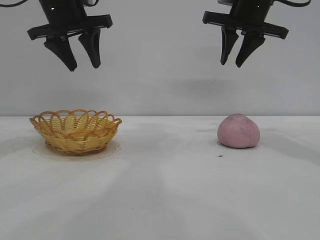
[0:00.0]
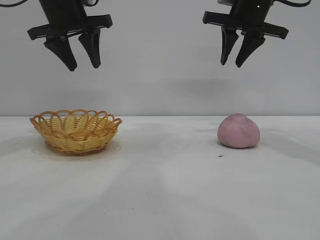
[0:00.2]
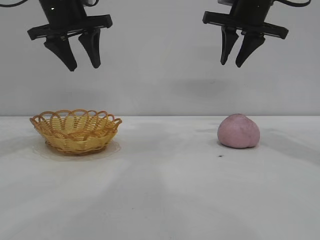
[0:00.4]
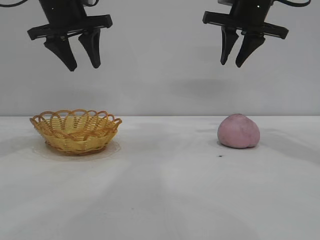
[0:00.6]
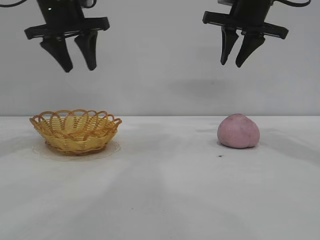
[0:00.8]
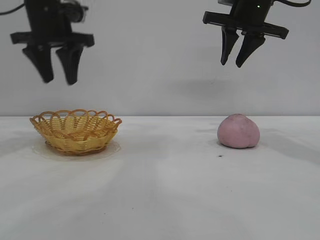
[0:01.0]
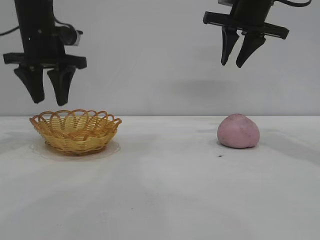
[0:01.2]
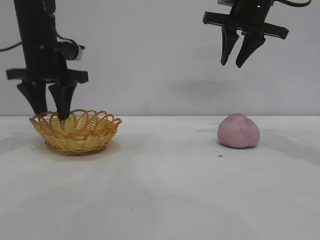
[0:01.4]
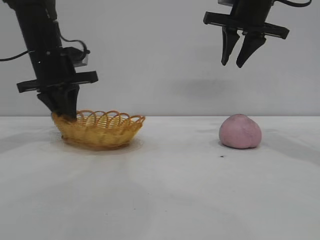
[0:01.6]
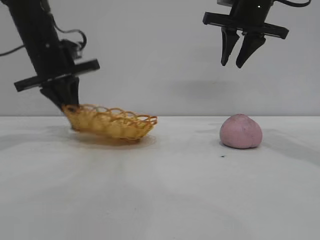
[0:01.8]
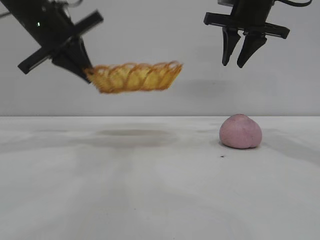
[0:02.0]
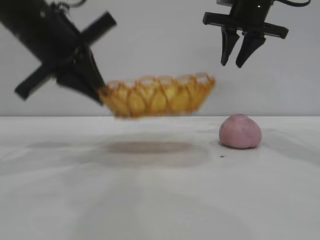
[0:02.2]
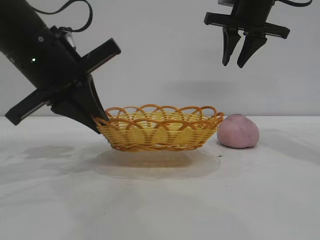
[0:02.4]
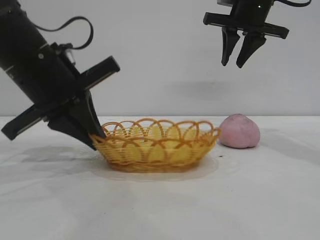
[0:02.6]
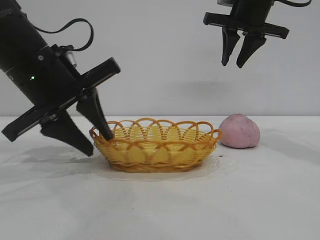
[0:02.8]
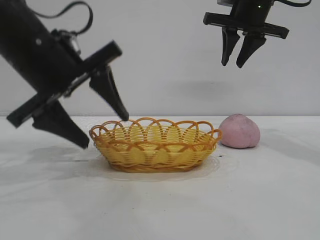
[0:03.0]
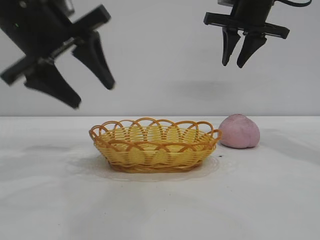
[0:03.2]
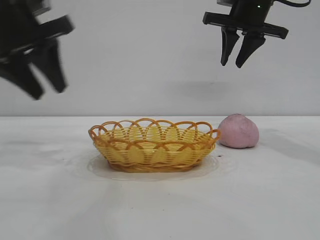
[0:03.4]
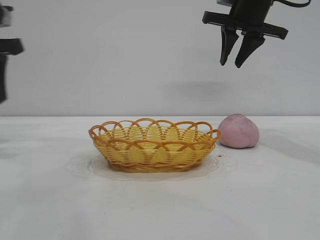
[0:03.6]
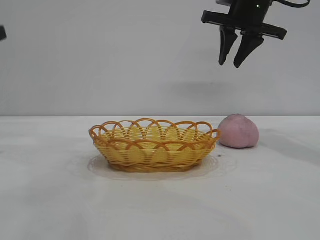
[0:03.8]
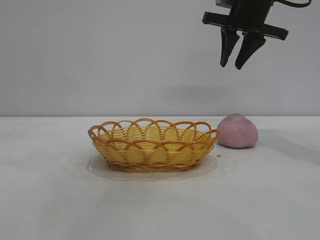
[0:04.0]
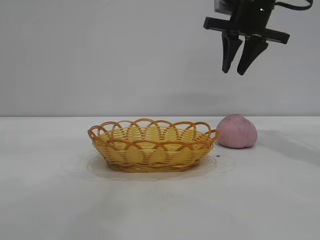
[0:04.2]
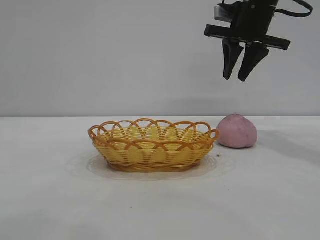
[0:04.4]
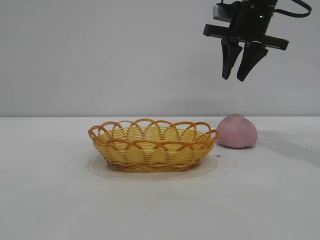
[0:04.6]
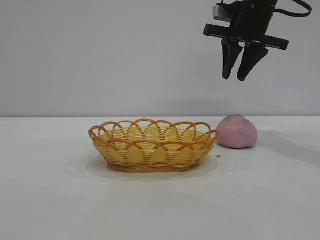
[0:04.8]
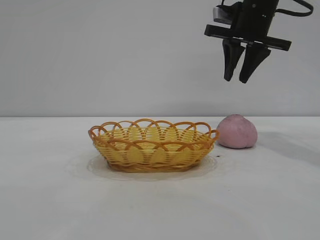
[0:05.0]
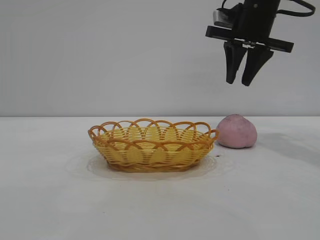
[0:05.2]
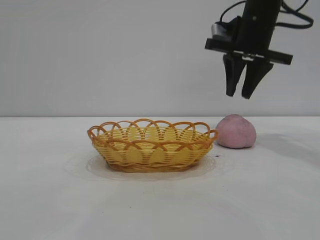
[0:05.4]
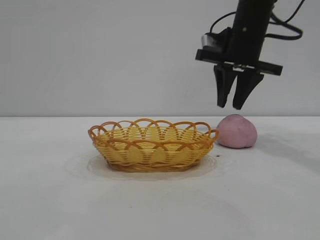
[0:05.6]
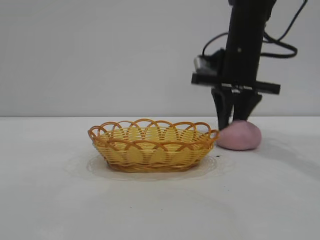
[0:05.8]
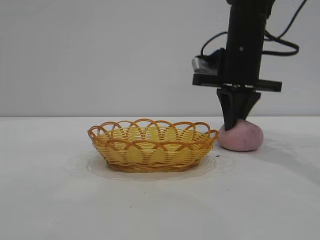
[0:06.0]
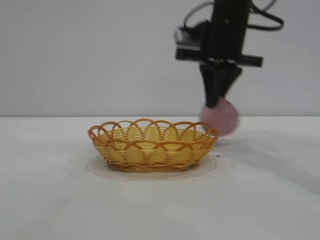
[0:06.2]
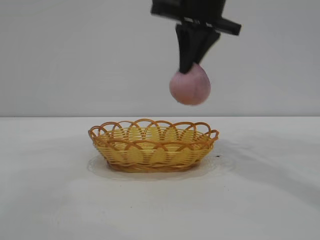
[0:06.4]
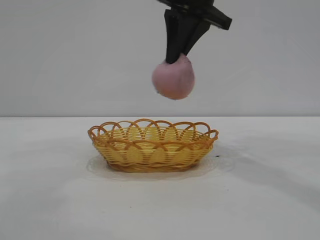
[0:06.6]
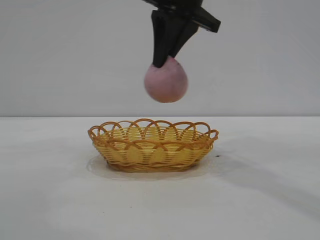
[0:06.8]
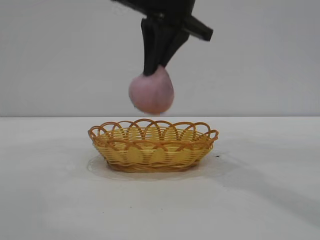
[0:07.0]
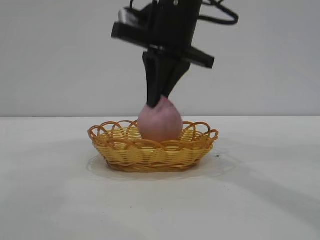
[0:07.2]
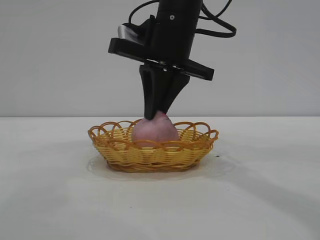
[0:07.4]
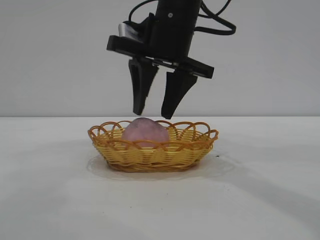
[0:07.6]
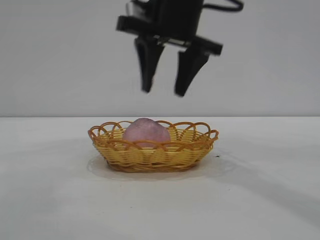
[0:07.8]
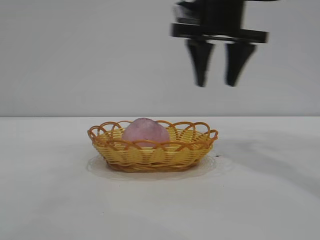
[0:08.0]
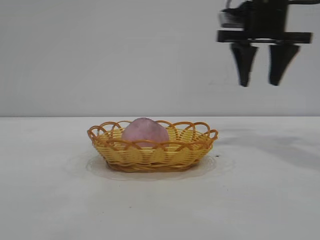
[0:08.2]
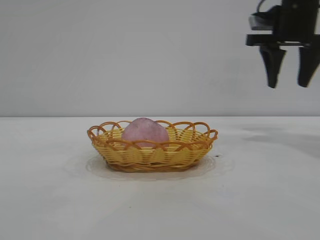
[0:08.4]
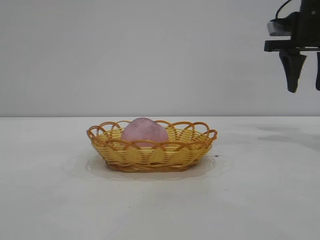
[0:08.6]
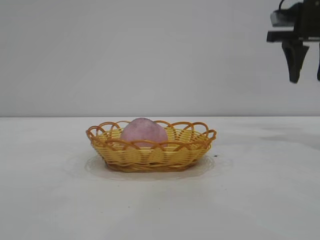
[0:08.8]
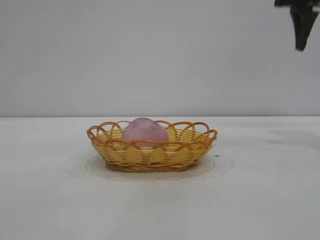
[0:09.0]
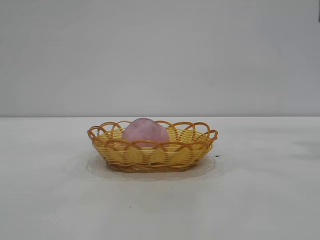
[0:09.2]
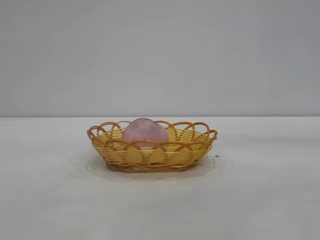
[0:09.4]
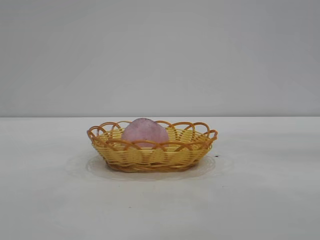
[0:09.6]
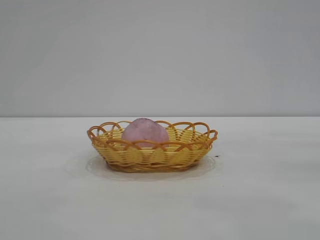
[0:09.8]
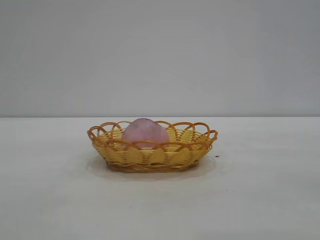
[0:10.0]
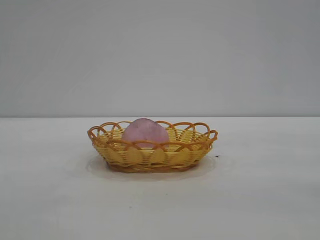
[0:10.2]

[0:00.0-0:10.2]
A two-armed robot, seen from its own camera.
Task of the whole recording: pick up the peach and put it into the basket.
Step, 0:00.0 to 0:03.2: Move the basket to the center of view.
Step, 0:03.4 to 0:06.2: Pick up the peach.
Step, 0:06.4 to 0:07.8: place the peach into the basket.

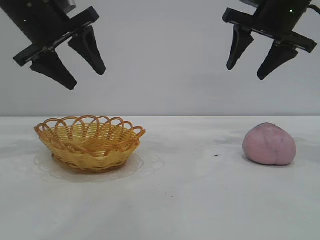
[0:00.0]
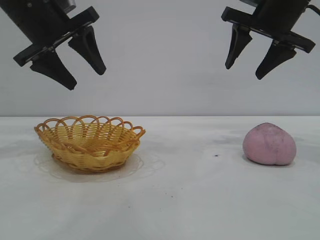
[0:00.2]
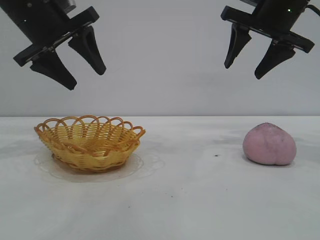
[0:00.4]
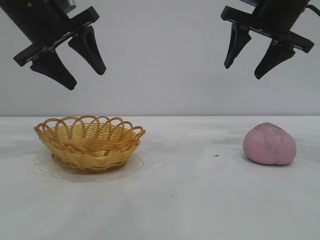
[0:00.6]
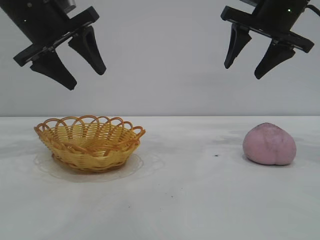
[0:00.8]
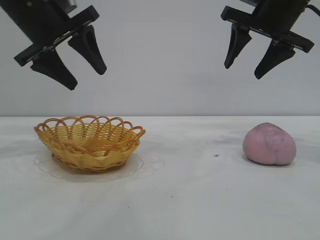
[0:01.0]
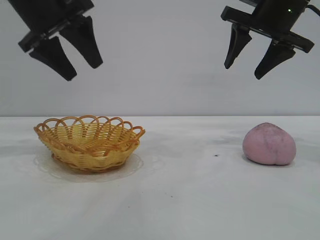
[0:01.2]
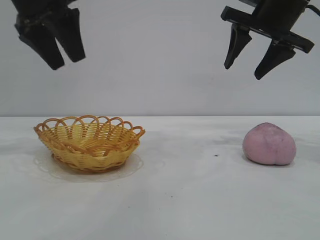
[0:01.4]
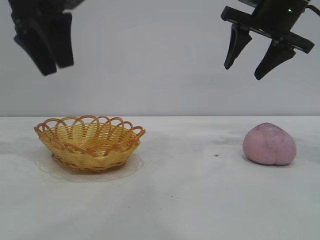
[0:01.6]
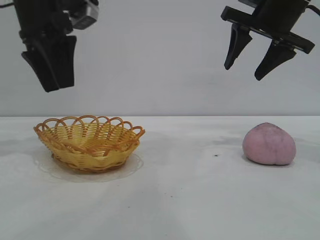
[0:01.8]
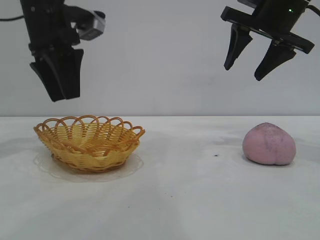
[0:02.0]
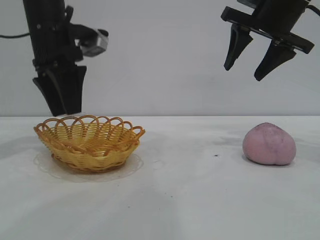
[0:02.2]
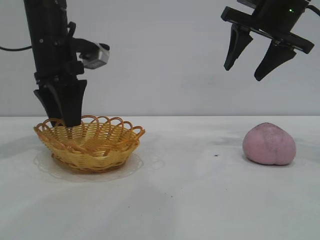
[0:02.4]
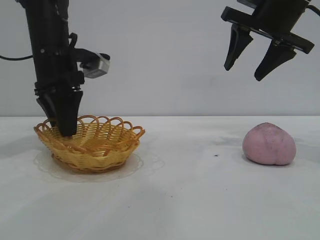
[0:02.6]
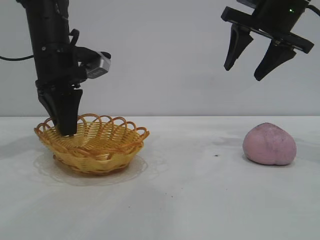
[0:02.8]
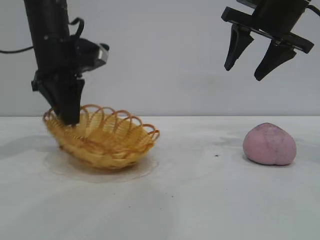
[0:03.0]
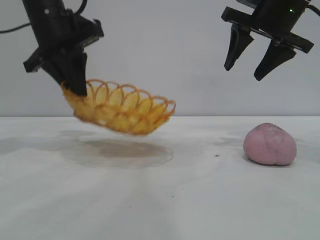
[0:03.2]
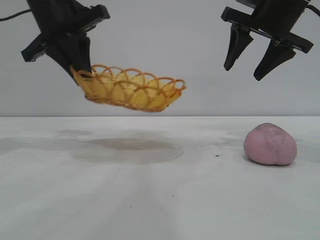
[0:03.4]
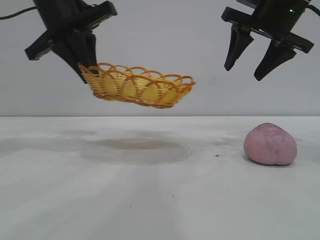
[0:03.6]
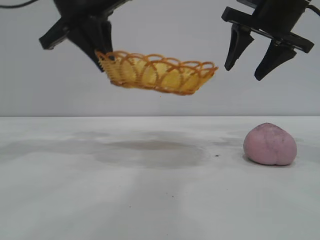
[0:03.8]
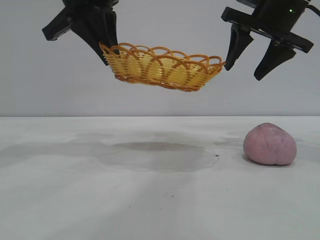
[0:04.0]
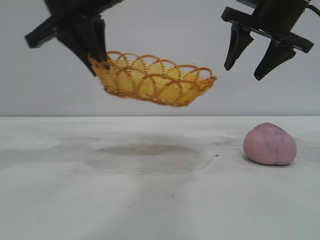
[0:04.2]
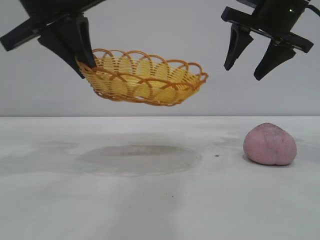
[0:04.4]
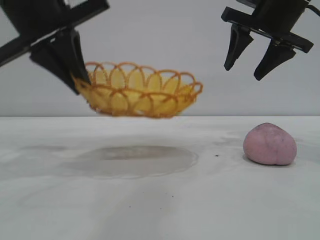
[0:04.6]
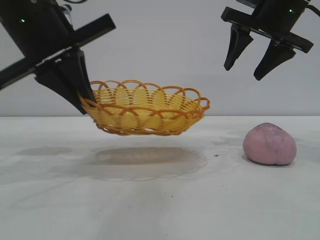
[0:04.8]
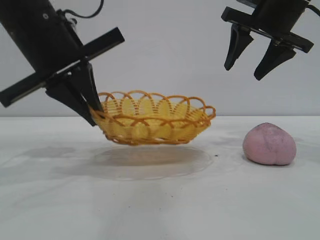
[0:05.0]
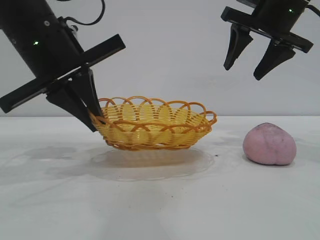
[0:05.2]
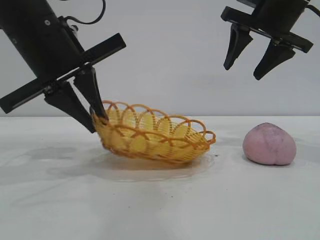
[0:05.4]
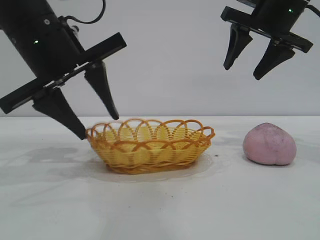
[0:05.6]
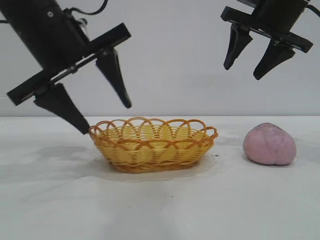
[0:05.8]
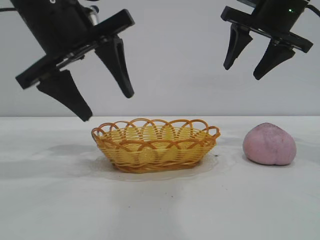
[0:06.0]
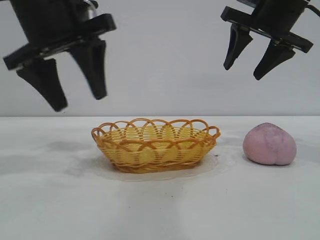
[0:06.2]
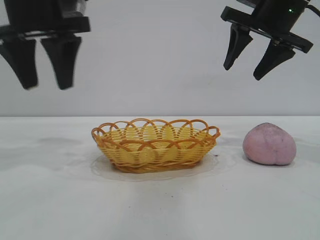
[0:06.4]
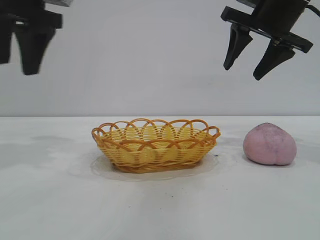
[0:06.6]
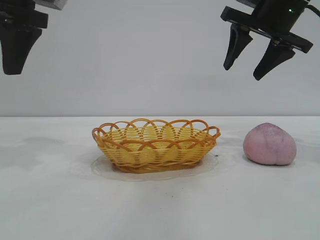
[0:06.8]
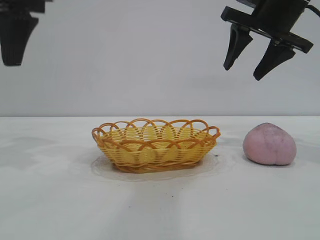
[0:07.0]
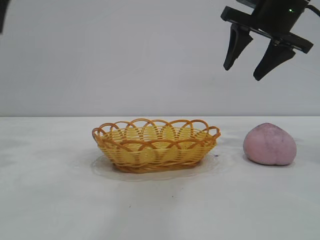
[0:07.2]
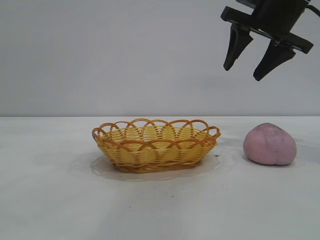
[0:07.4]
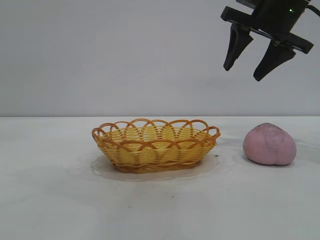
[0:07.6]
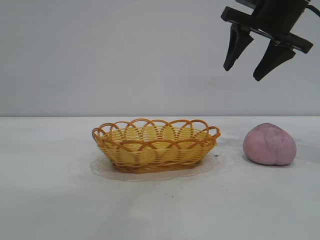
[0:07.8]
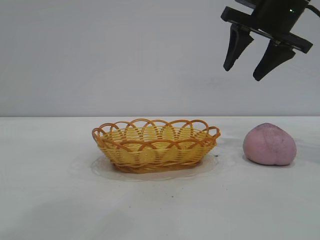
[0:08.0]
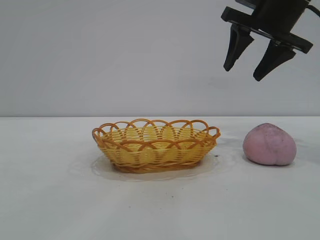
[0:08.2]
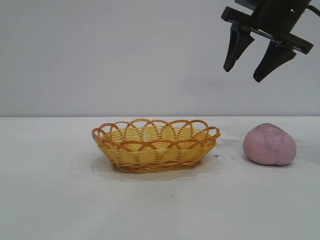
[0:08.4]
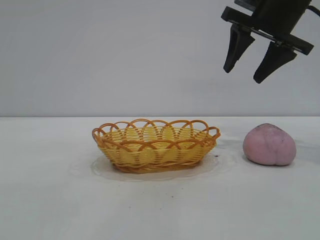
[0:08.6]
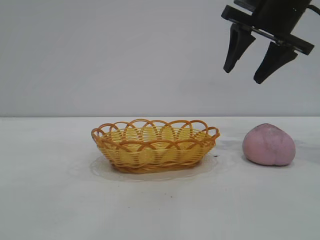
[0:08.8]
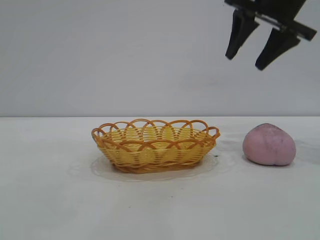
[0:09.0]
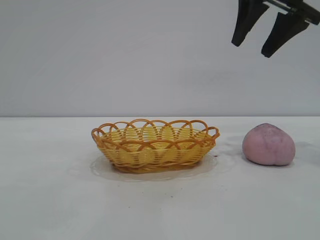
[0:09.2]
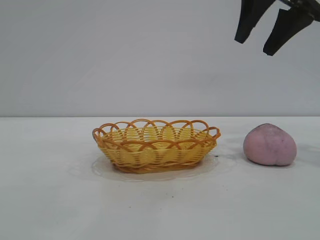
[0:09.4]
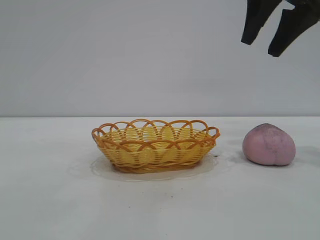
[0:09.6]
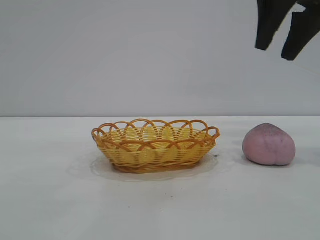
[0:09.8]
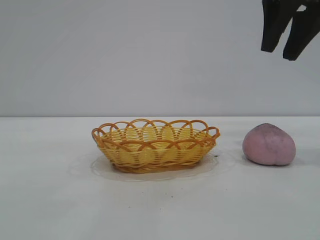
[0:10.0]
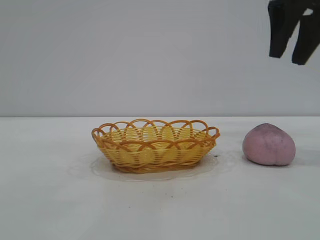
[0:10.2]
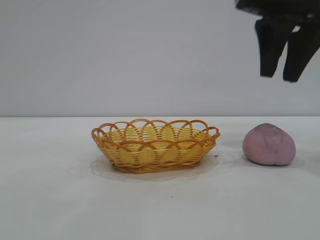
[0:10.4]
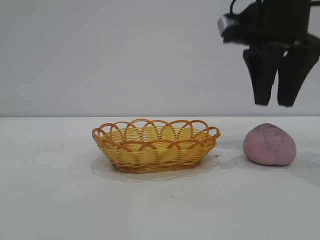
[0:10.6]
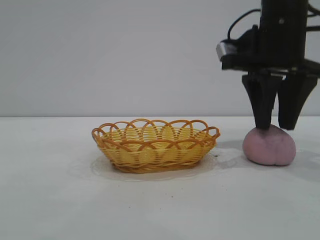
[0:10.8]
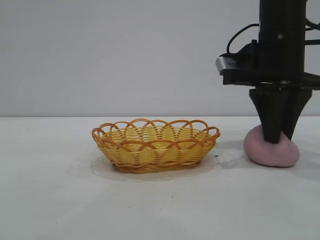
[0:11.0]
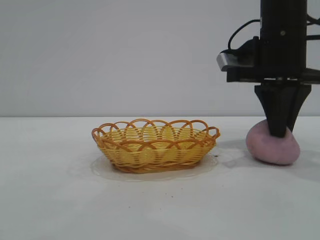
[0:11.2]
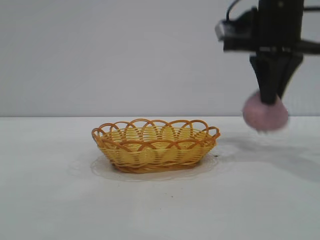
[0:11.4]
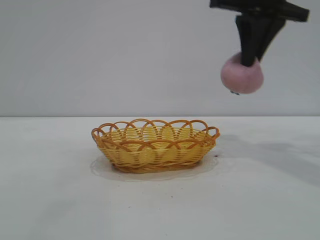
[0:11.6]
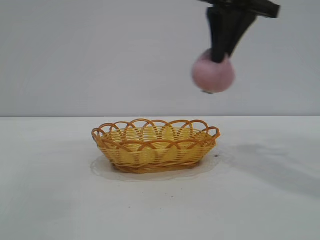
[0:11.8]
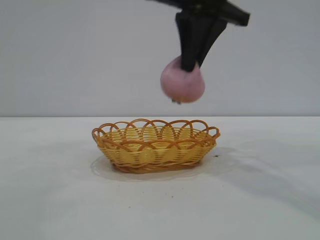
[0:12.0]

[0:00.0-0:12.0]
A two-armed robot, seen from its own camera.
Task of the whole recording: pick up the peach and put it into the basket.
Step, 0:00.0 to 0:06.4: Move the basket to the center of view.
Step, 0:06.6 to 0:11.4: Pick up the peach.

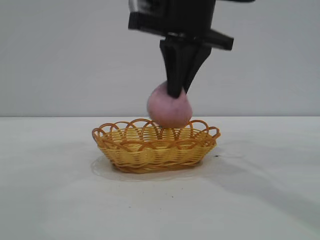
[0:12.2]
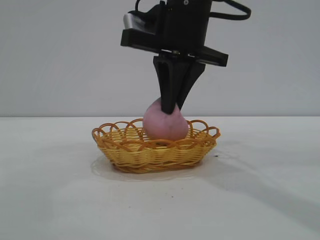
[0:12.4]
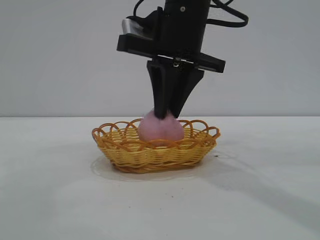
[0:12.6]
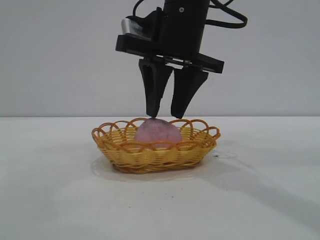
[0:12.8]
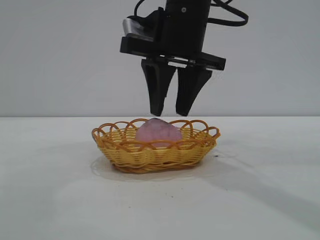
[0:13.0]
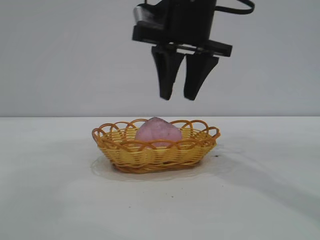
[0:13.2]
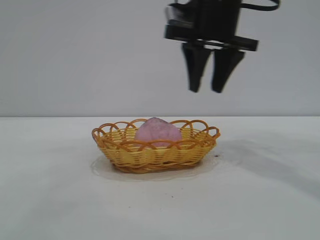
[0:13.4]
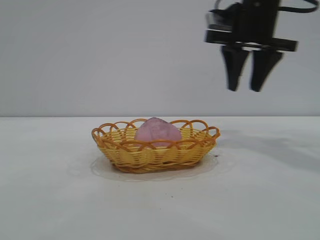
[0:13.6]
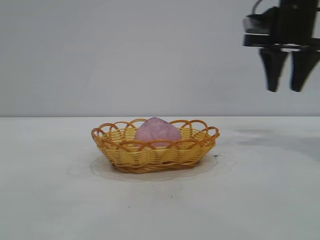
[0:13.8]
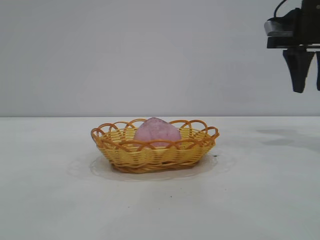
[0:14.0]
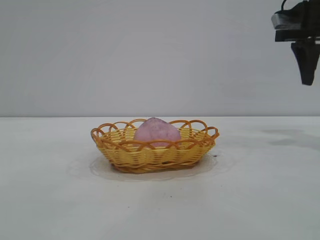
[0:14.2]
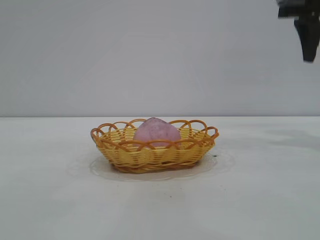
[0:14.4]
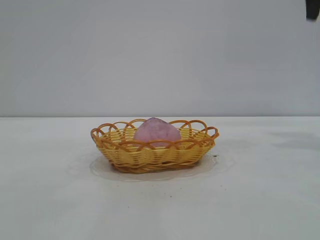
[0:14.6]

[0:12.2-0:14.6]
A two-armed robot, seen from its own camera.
Task of the whole recording: pick up the peach and put it into the basket.
Step, 0:12.2 to 0:13.4: place the peach into the basket.
